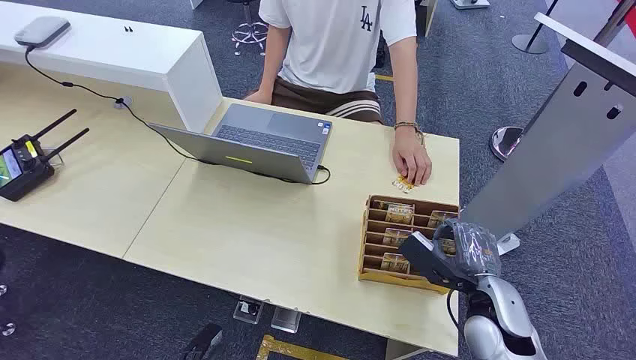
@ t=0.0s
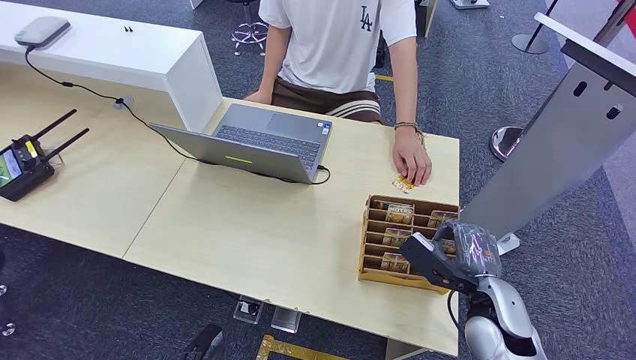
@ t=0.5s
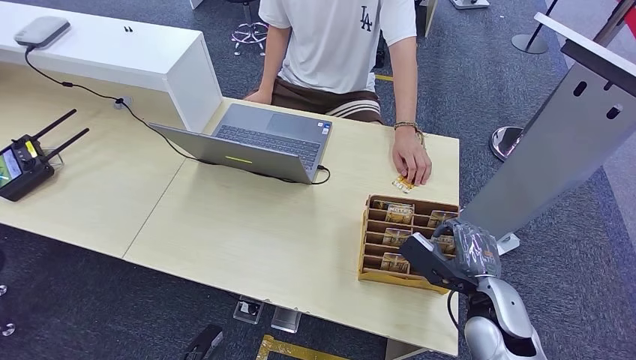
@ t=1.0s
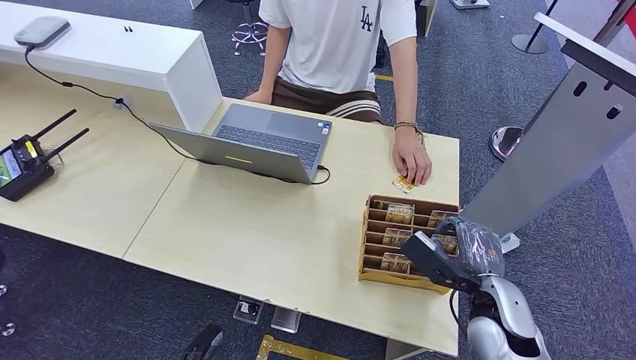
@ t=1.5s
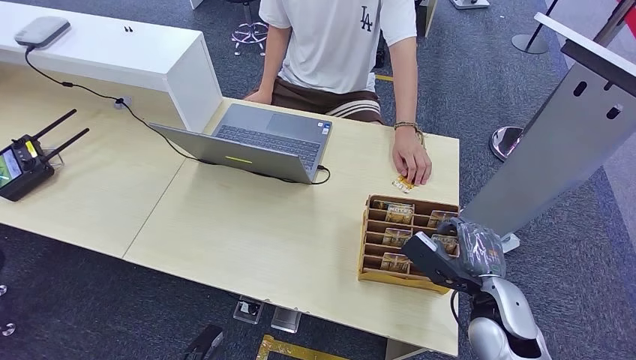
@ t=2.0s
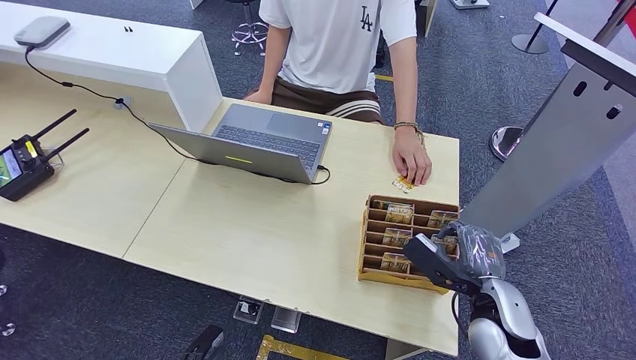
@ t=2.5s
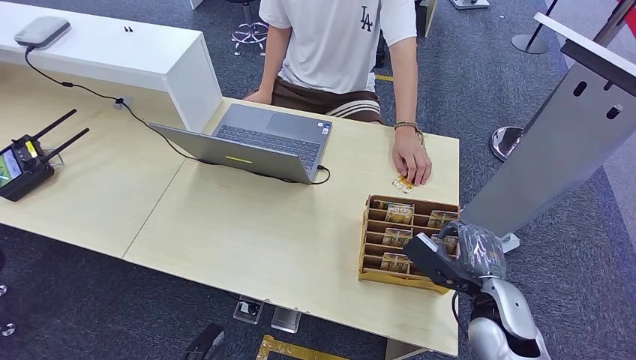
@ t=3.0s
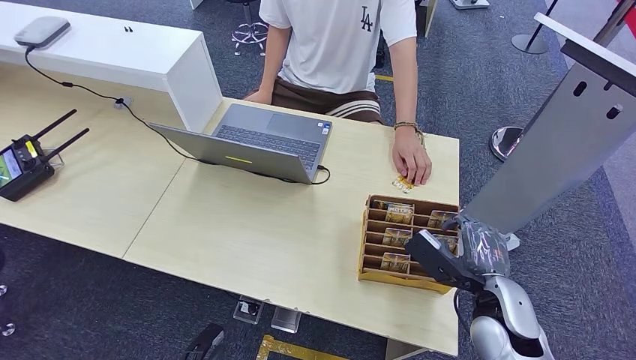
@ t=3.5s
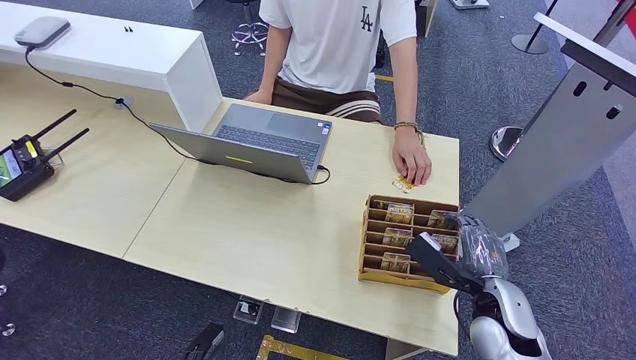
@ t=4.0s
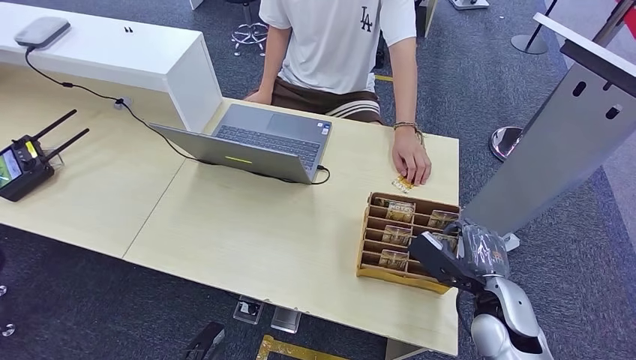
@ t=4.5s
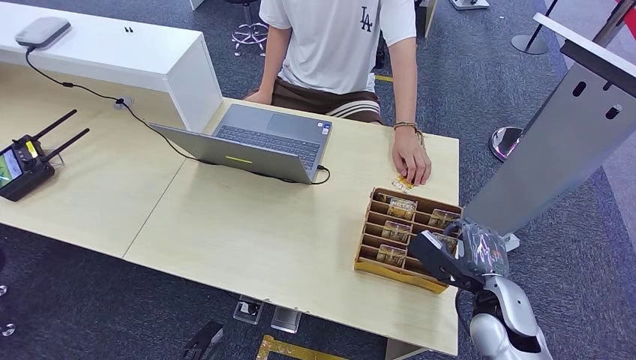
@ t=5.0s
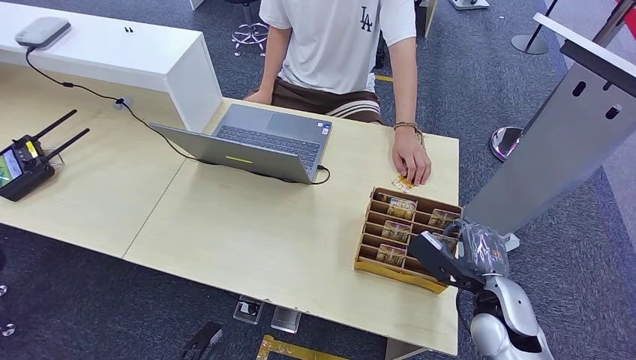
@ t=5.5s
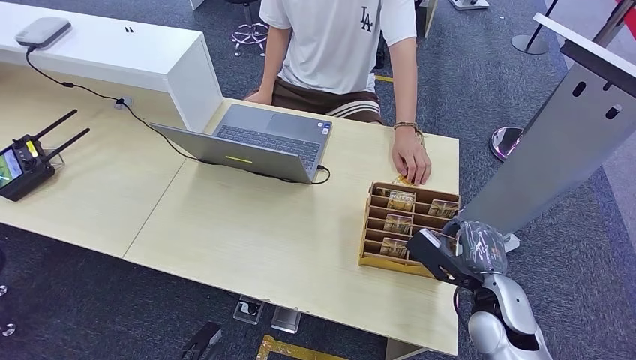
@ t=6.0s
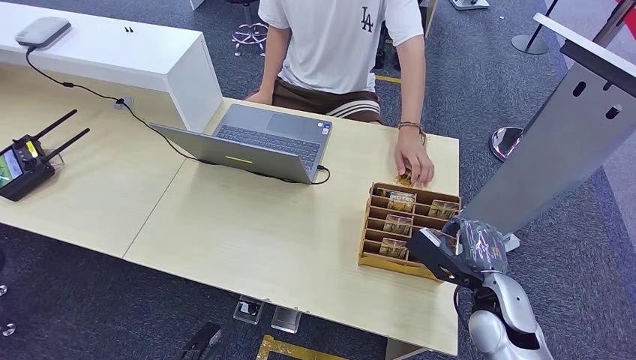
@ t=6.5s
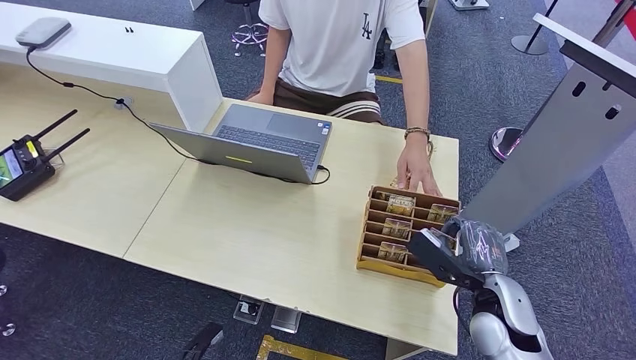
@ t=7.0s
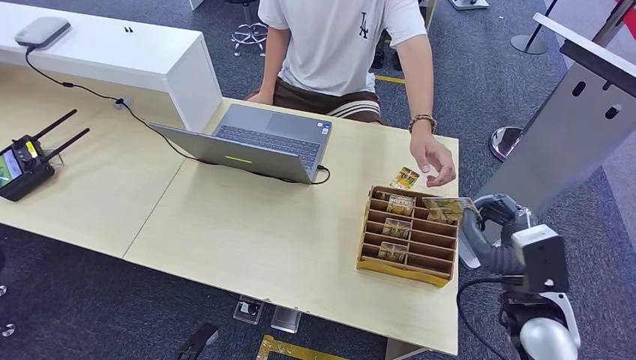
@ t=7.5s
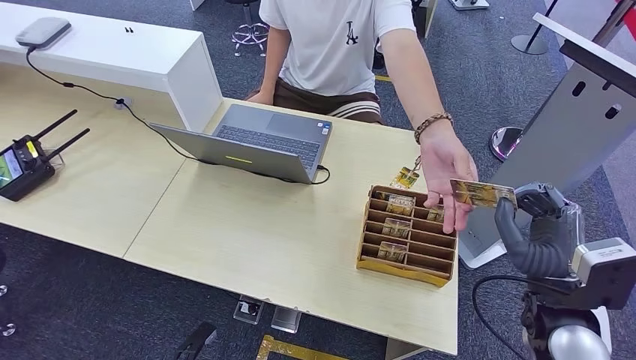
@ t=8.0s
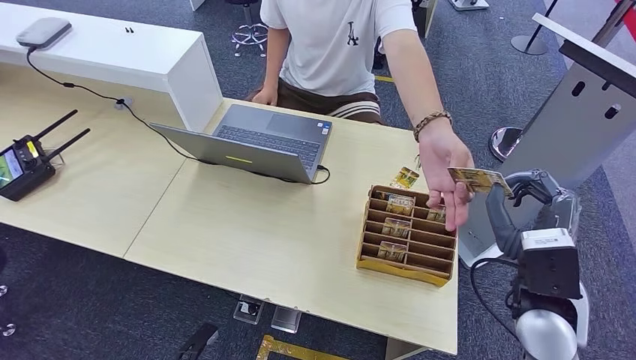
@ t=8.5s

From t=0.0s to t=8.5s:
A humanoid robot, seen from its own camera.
Step, from t=0.0s to t=7.0s: Pick up the room card from the card holder.
Step, from t=7.5s to t=8.5s: Hand the room card to the target.
From t=2.0s to t=6.5s: The hands move only a little.
From t=6.5s to t=8.5s: The right hand goes roughly 5 cm upward.
